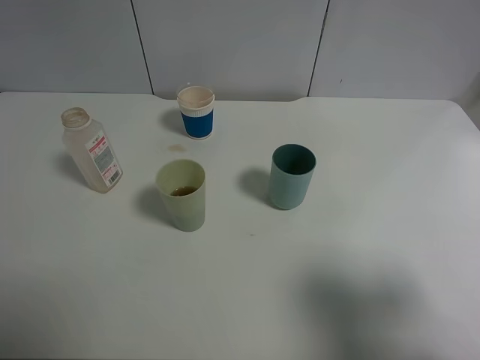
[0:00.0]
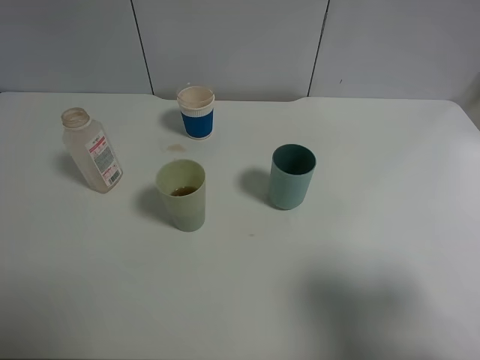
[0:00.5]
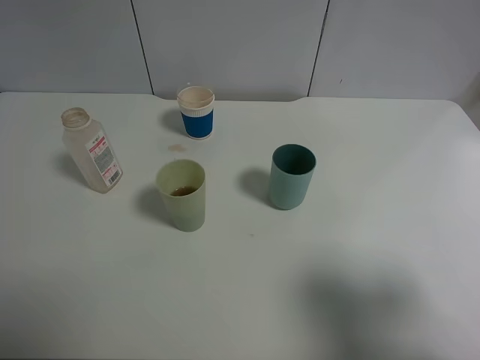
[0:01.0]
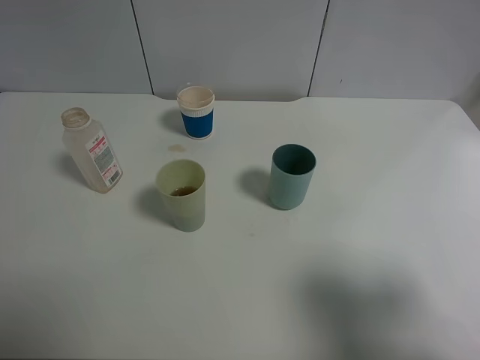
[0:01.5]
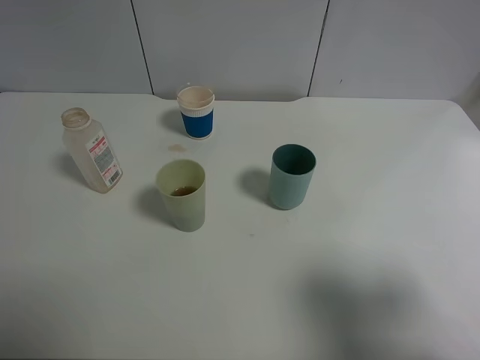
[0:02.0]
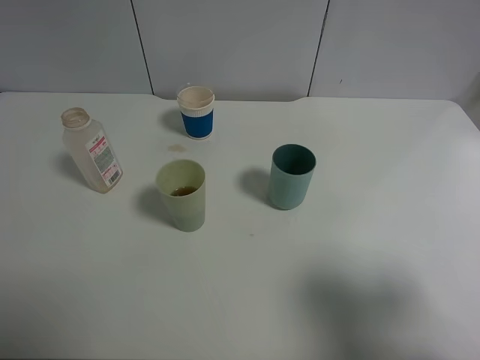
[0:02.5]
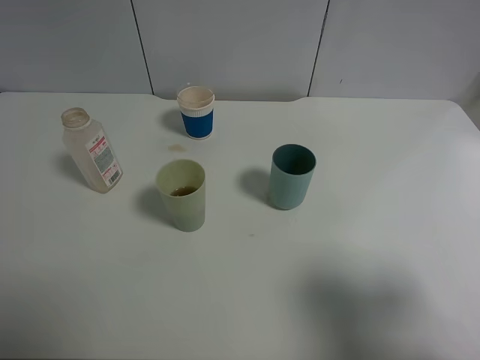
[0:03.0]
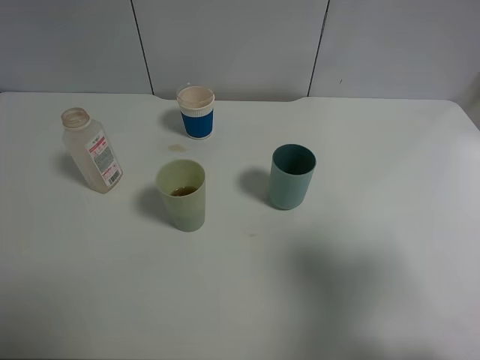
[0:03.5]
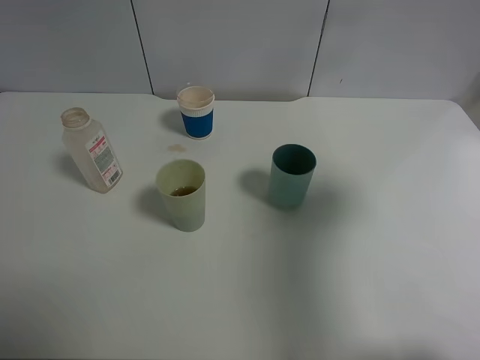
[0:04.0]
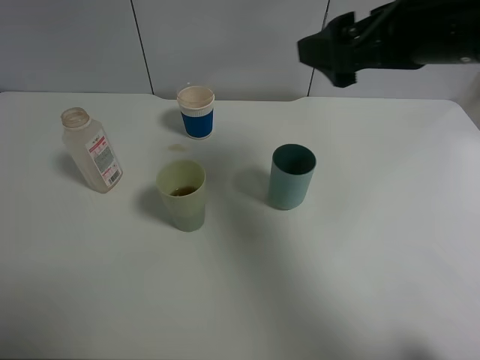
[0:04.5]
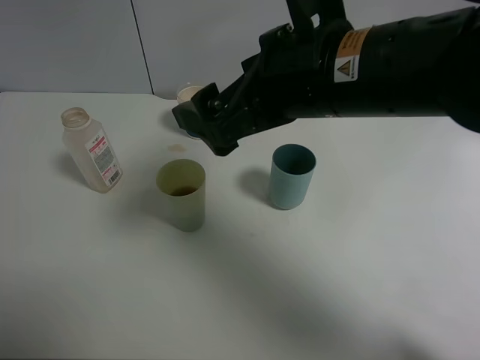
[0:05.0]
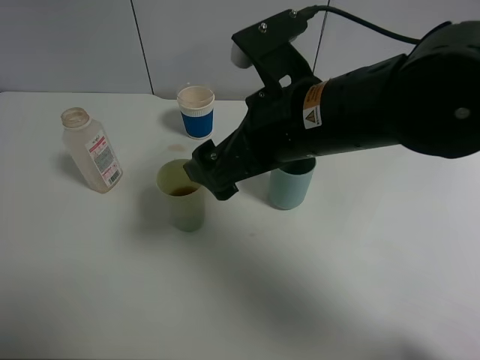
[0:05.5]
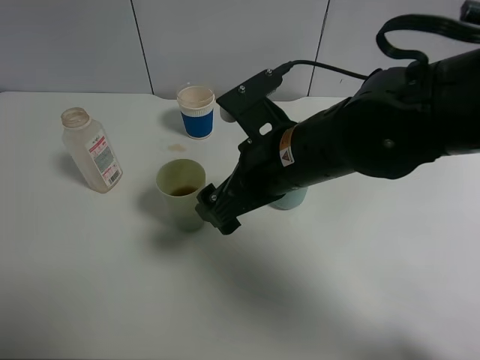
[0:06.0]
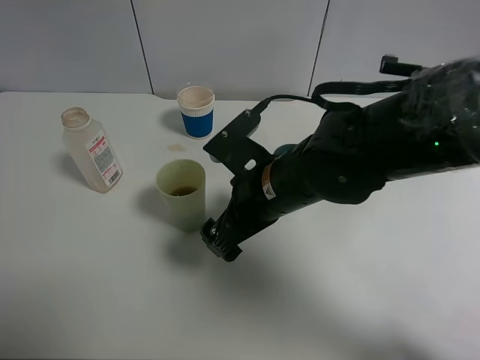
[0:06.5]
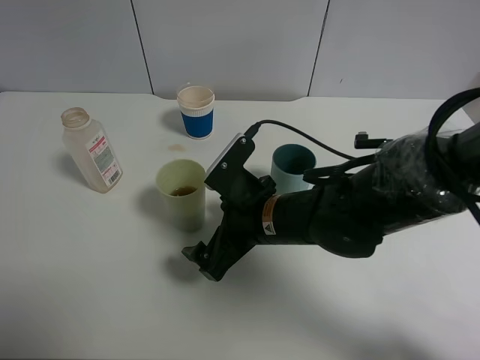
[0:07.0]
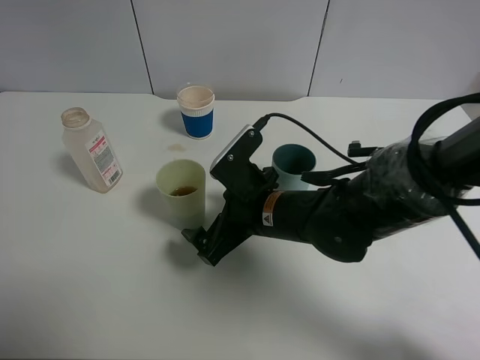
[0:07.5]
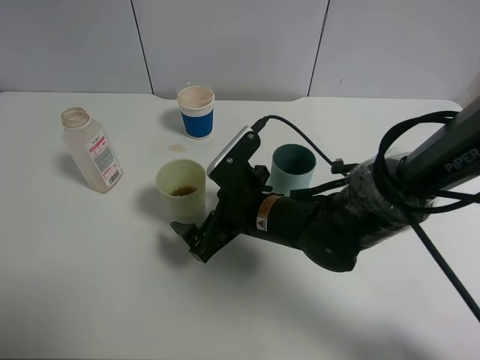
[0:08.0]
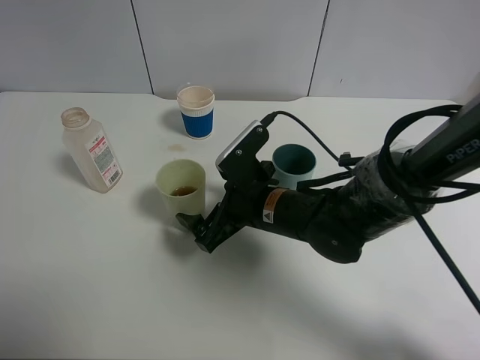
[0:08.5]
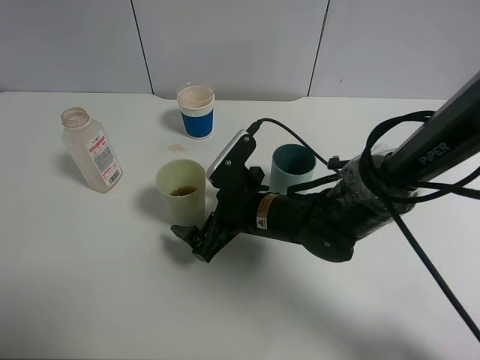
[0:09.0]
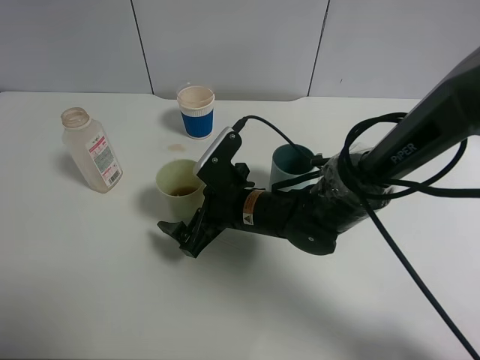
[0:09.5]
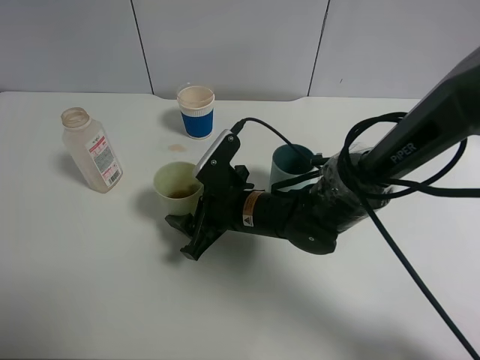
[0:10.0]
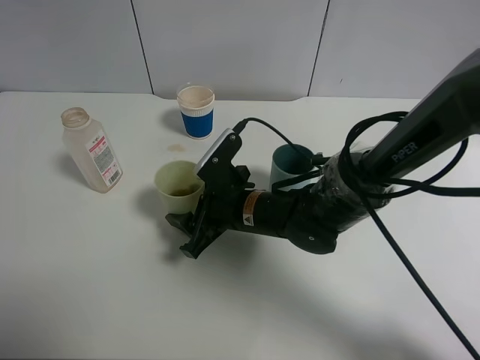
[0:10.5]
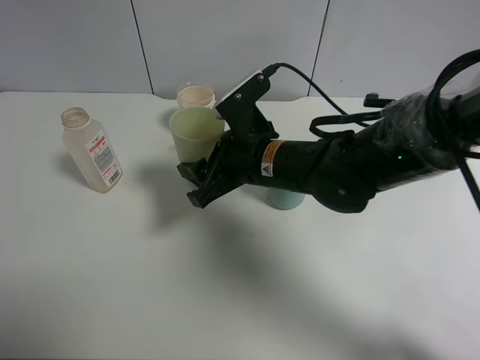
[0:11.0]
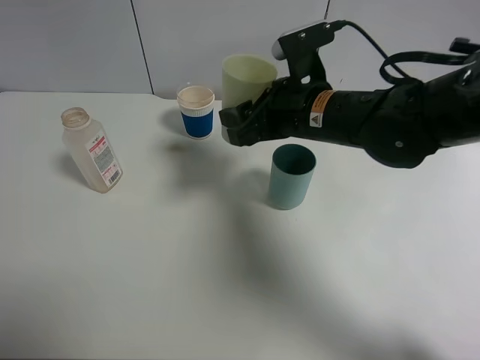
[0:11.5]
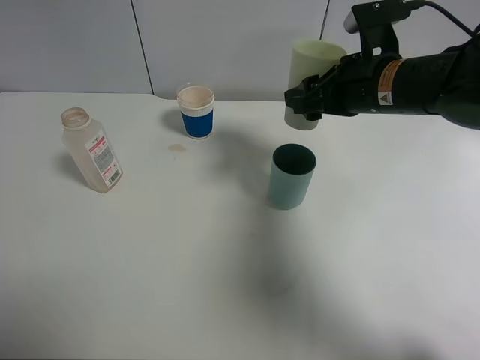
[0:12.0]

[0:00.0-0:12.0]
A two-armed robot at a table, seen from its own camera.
Task of the whole recording: use a clamp to hold the bottle of the drink, pour the beverage into a random cup, then clamp the cup containing the drink and pour the drink into another random cup.
Step, 0:00.0 to 0:11.0: Pick up the green plastic cup bottle with right gripper.
0:02.0 to 0:04.0: The right gripper shifts about 15 cm forward and upward.
0:04.0 to 0:06.0: The right gripper heads to the left and downward, covering approximately 25 cm.
0:06.0 to 0:08.0: The right gripper is displaced downward by approximately 10 cm.
0:08.0 to 0:10.0: The right gripper closes up.
0:10.0 to 0:12.0: The right gripper goes about 20 cm upward and to the right.

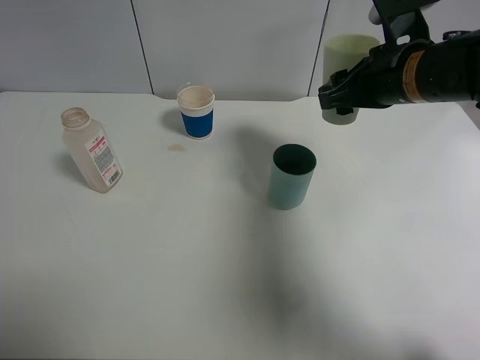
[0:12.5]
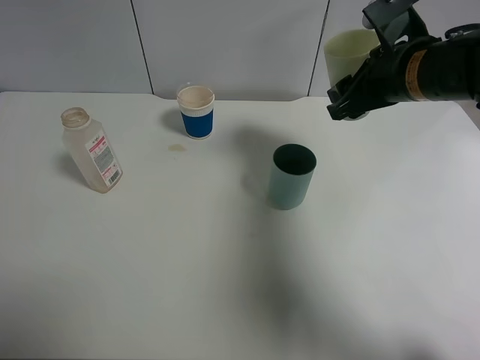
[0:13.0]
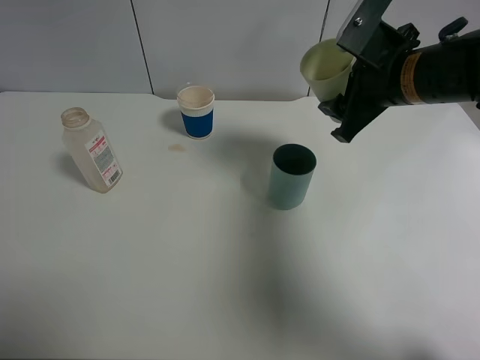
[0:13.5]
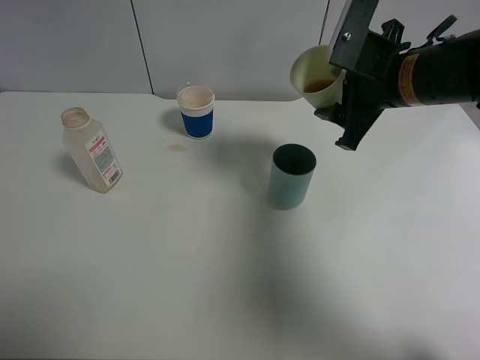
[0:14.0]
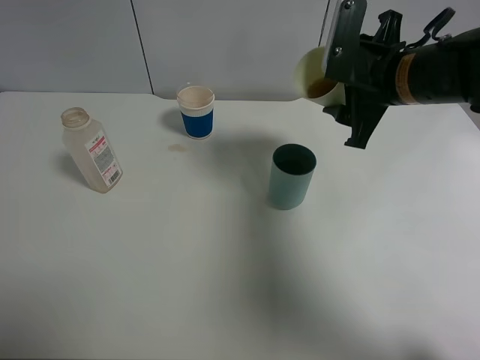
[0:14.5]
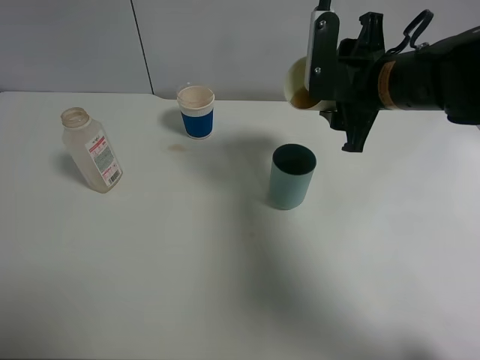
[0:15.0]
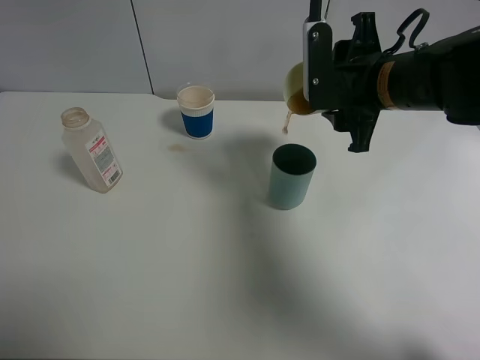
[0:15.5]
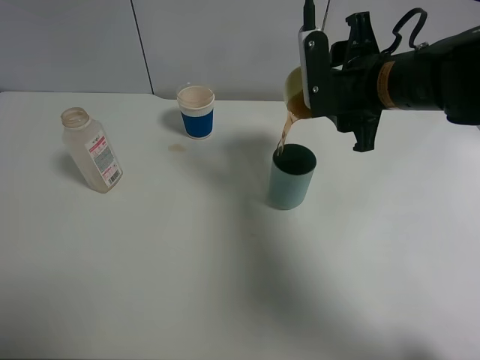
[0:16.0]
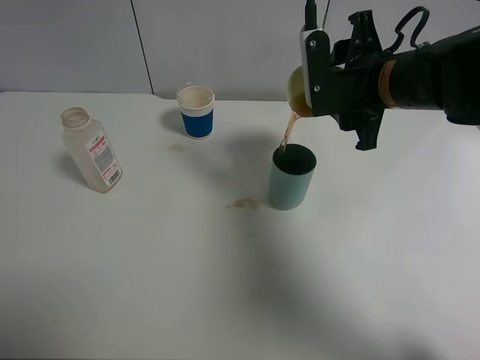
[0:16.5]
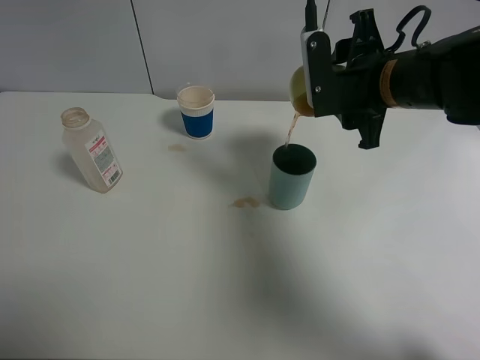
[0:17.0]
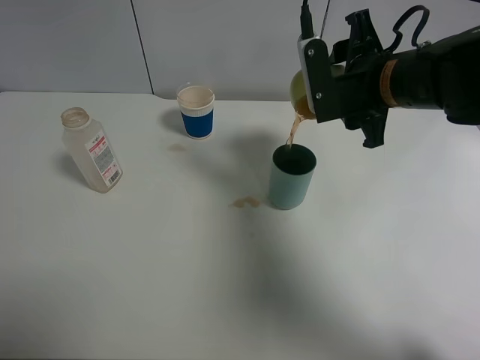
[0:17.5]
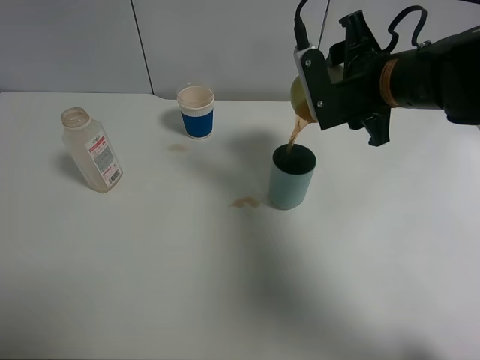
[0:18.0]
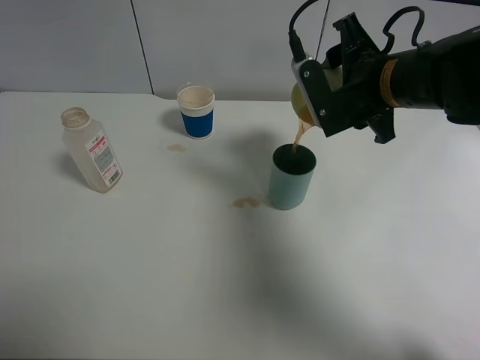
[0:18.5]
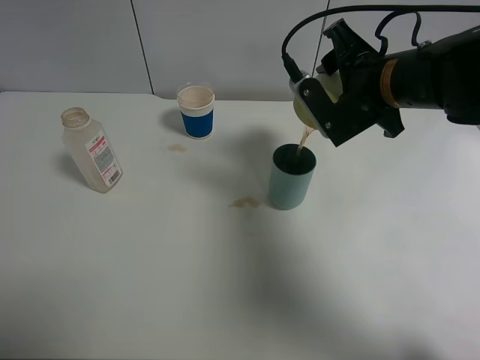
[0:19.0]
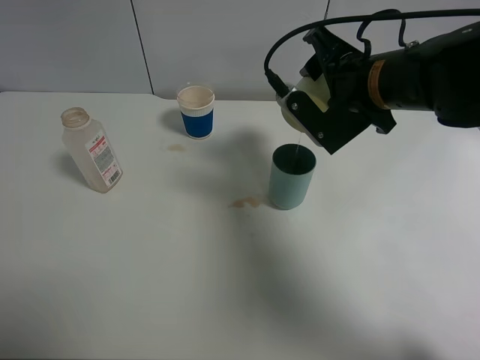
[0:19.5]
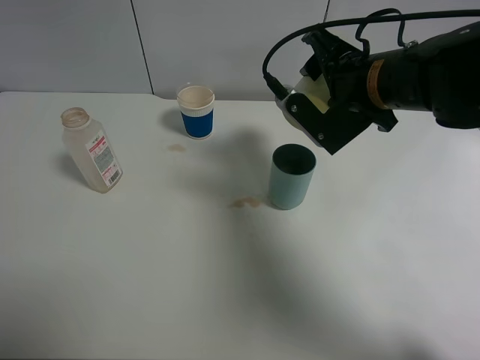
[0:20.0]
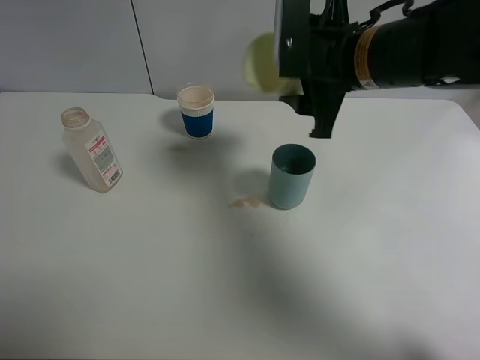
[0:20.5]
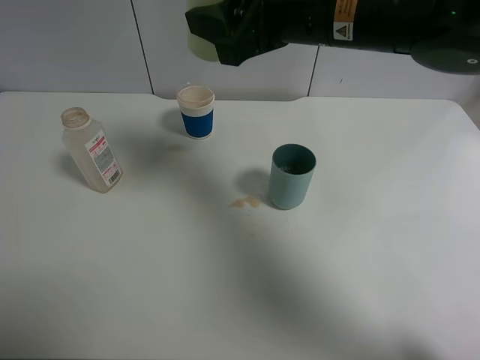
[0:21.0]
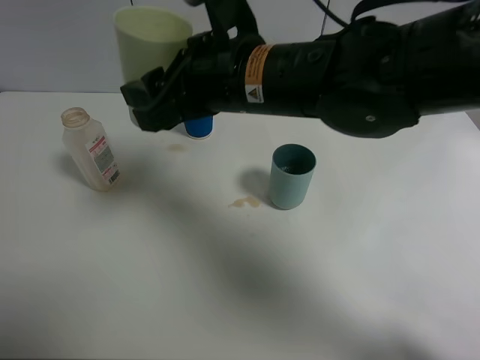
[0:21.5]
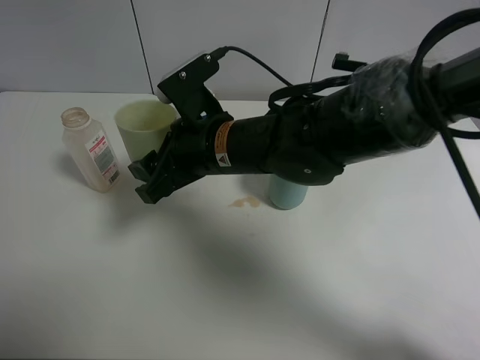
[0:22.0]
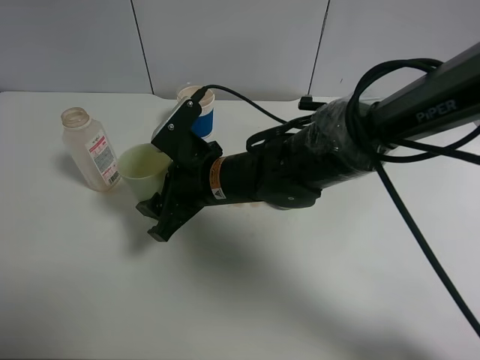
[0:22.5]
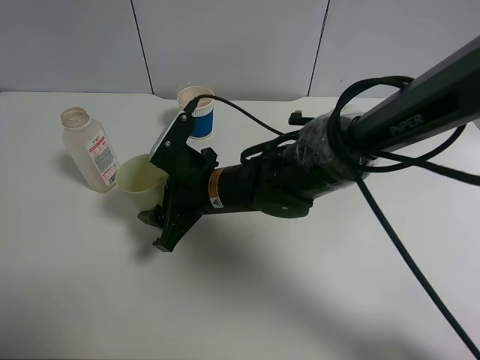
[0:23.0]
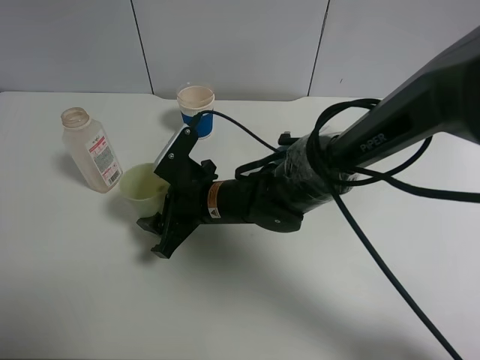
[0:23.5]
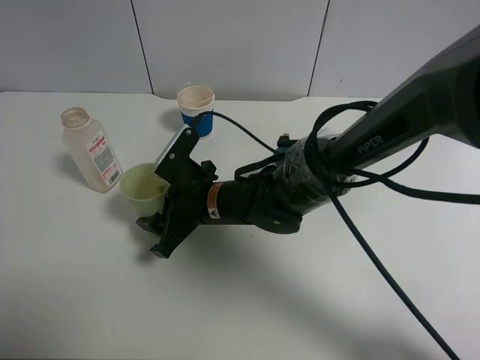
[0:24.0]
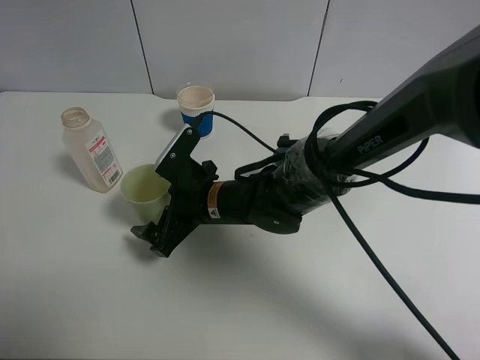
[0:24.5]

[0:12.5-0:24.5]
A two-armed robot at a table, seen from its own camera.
Task of the whole recording: use a clamp to hold the bottle of the drink, pour the beverage into a random cup, then clamp the cup containing the drink and pour the drink into another random cup.
Step, 0:12.5 to 0:19.5: Pour the drink into the blue plastic cup with right gripper.
0:16.5 to 0:18.5: The grippers stay close to where they were, moving slightly.
0:20.5 to 0:22.5: The right gripper moves to the left and downward, approximately 20 cm.
0:22.5 to 0:24.5: The right gripper is displaced downward by roughly 5 cm, and opens its fingers.

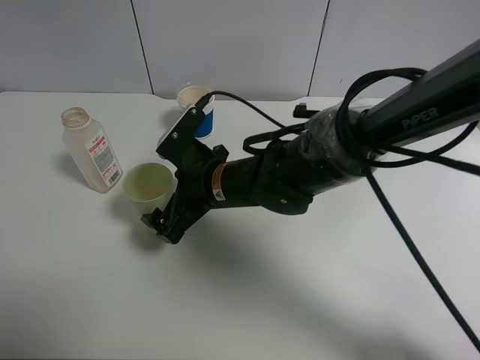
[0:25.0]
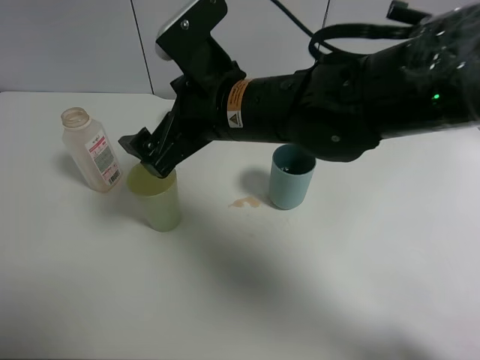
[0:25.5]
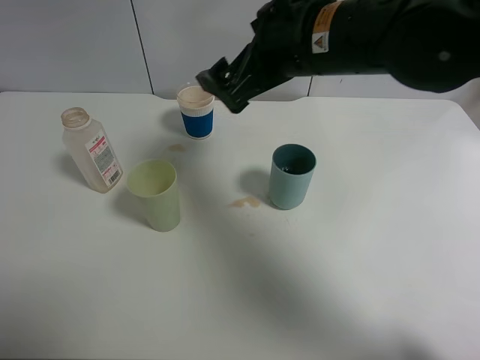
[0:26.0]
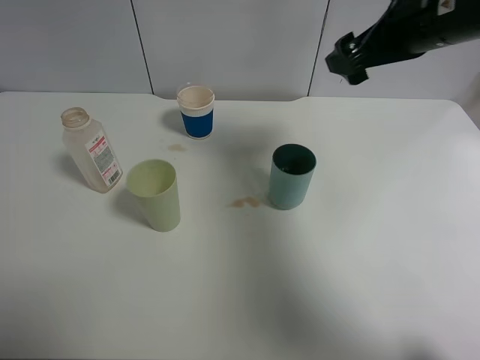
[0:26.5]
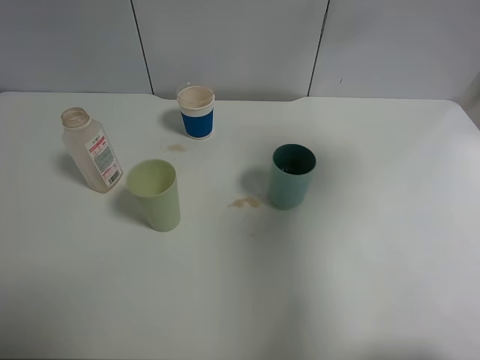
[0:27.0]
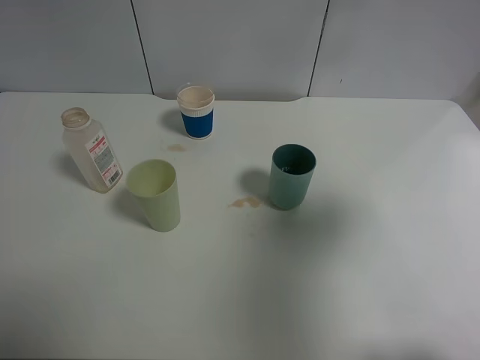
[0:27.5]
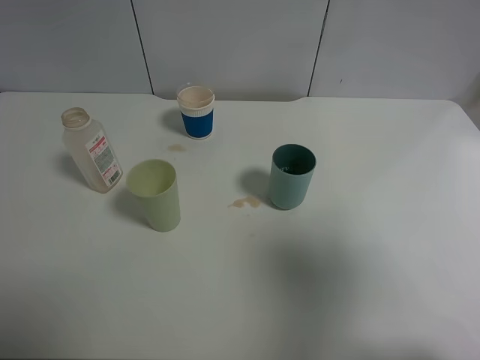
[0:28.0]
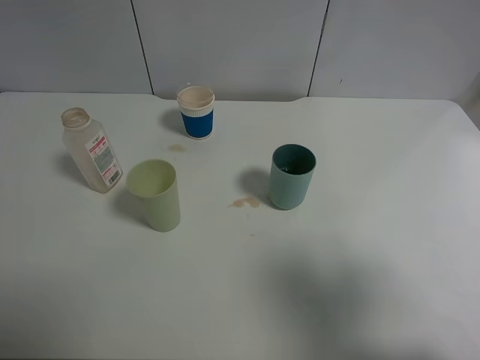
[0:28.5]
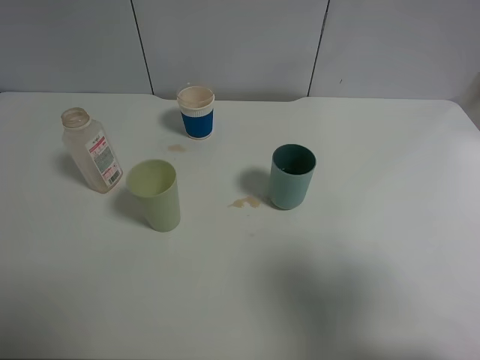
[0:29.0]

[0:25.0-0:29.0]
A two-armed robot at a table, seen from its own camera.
Task of the whole recording: use a clamp to hold the bottle of the drink, pour the beverage into a random cup, then clamp the cup containing the drink and pour the drink into another random cup.
0:25.0 to 0:27.0: The right gripper shifts some 40 cm to the right and upward.
0:27.0 to 0:29.0: The right gripper heads backward, covering some 20 cm.
